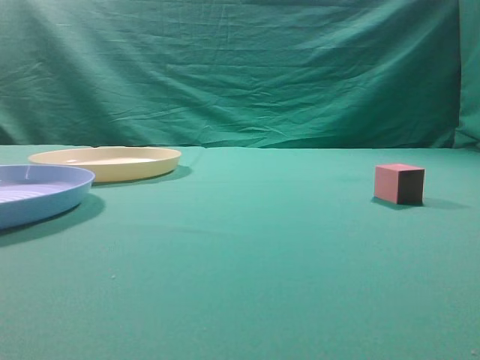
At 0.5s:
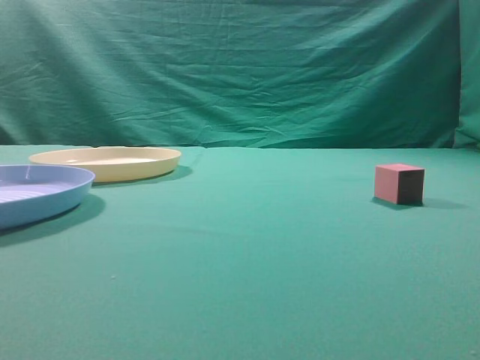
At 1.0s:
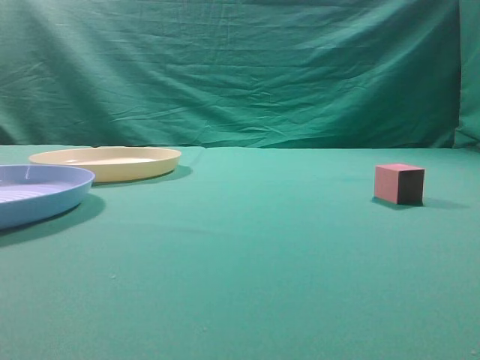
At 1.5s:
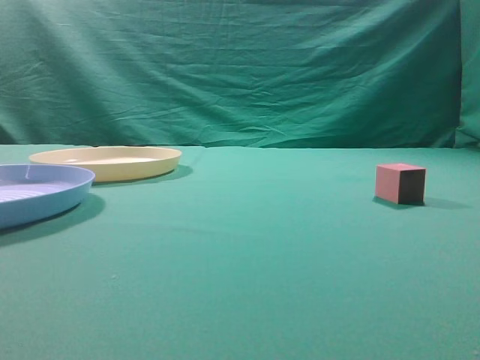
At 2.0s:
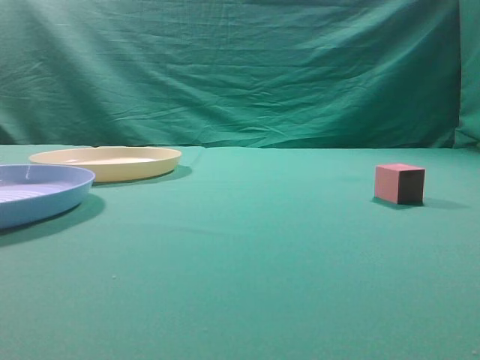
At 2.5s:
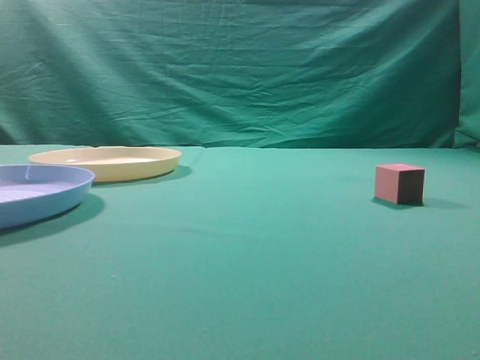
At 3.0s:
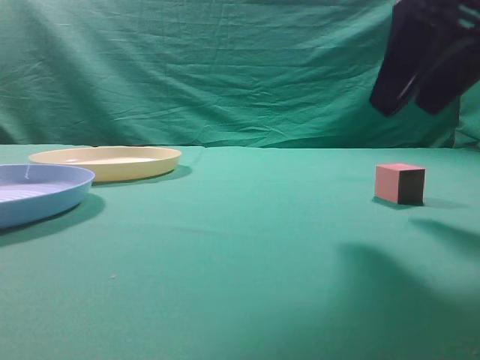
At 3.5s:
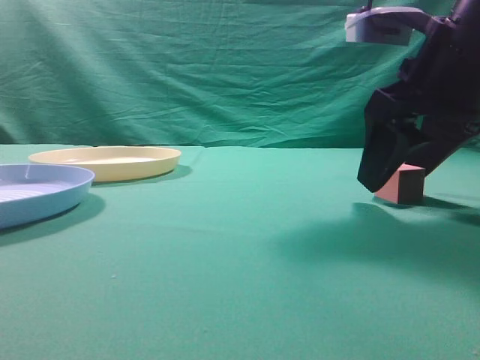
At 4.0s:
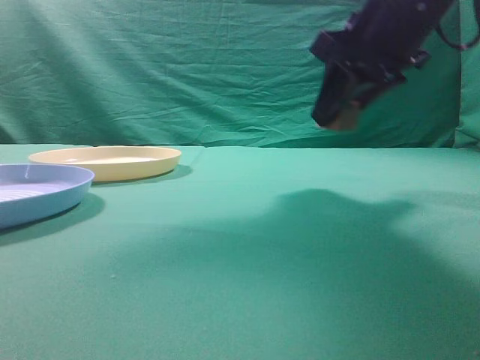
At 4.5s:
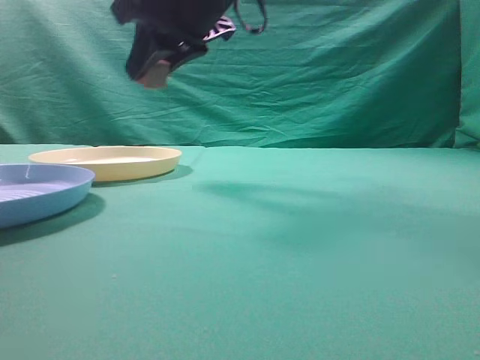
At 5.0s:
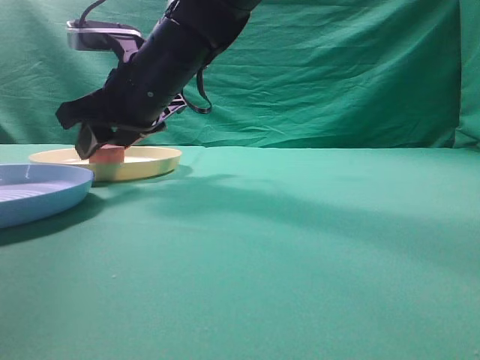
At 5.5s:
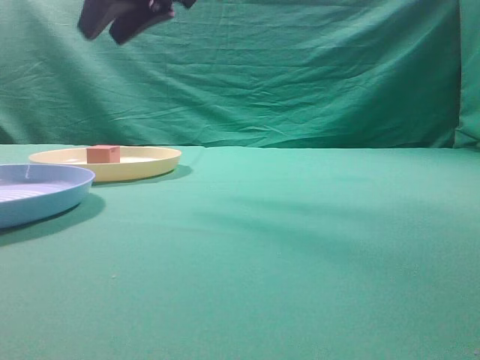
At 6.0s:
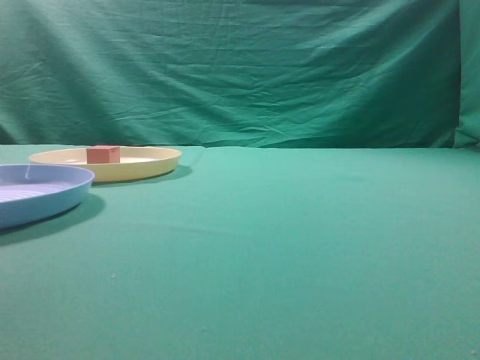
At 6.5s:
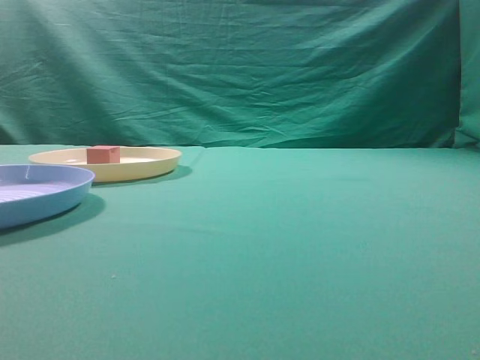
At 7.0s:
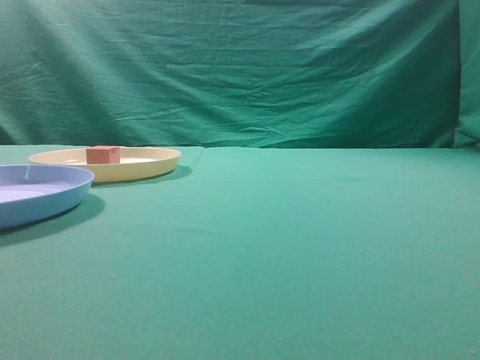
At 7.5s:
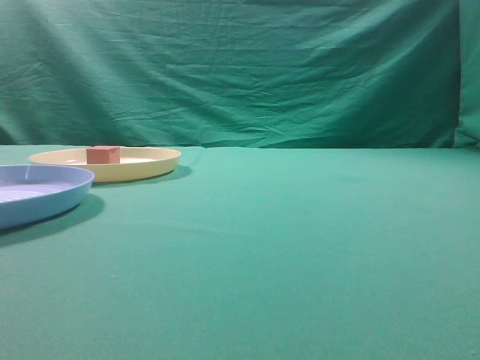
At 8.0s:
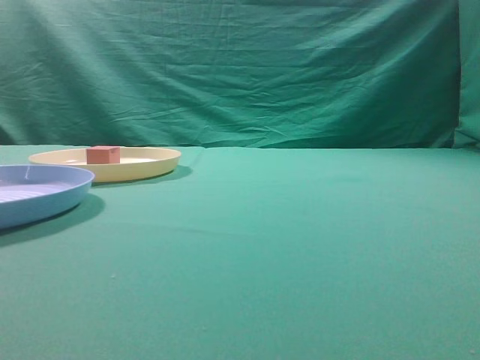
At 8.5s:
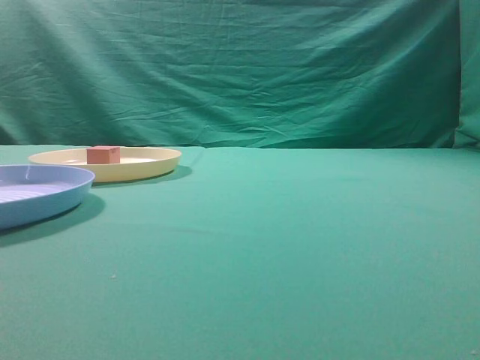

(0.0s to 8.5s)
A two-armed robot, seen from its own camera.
Task of the whole recording: pick up the cube block from the table and put it on the plate.
Step, 0.0s - 3.5s: Grasp the small cube on the table.
Step, 4.0s - 5.0s: Place it into the yellow plate.
2.0s - 4.0s: The right gripper moves forward and to the left, roughly 25 cm, and opens its fingers.
4.0s - 6.5s: The right gripper moves up and down over some 25 cm, changing direction 2 times, and closes up.
